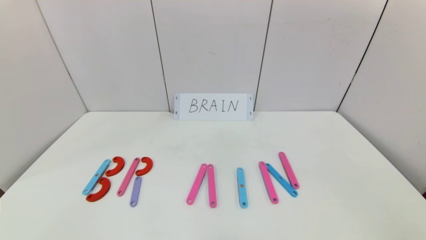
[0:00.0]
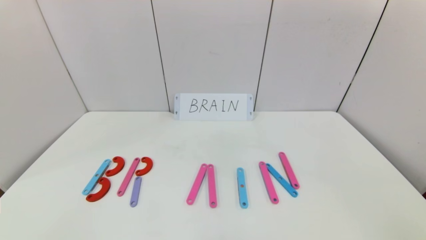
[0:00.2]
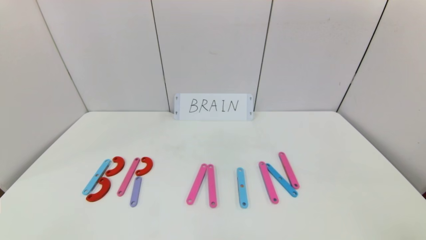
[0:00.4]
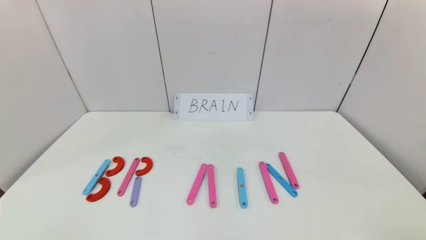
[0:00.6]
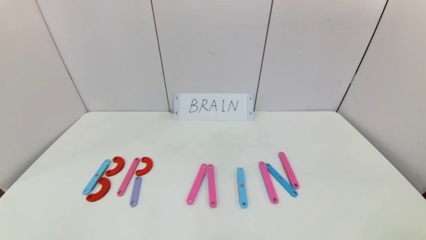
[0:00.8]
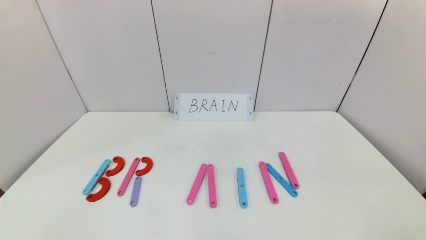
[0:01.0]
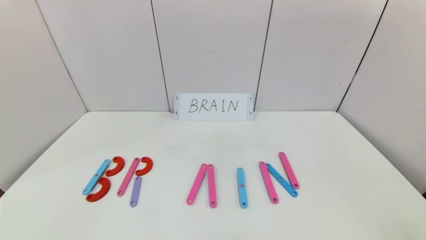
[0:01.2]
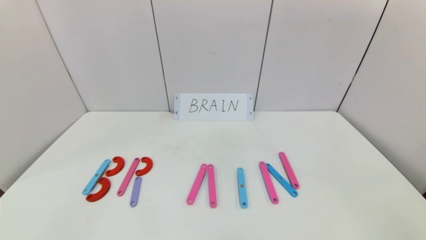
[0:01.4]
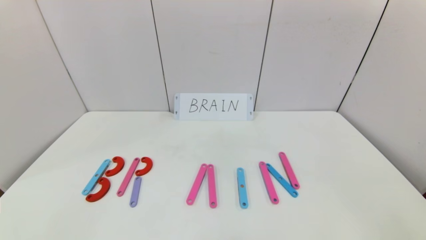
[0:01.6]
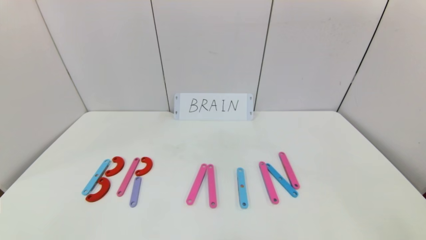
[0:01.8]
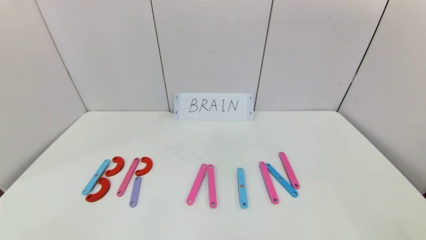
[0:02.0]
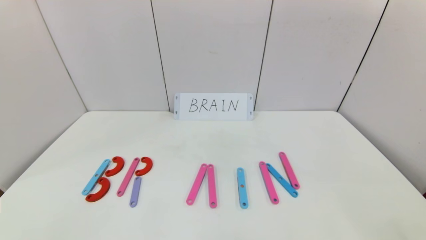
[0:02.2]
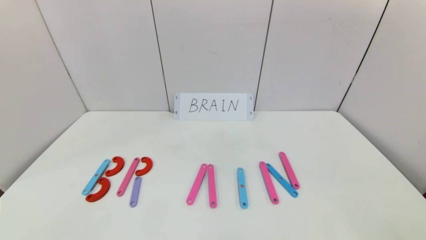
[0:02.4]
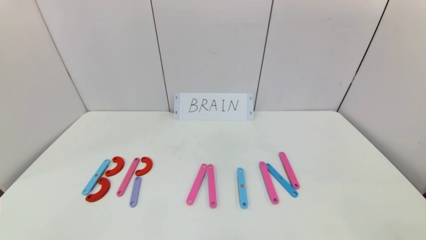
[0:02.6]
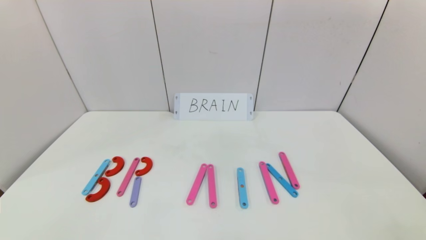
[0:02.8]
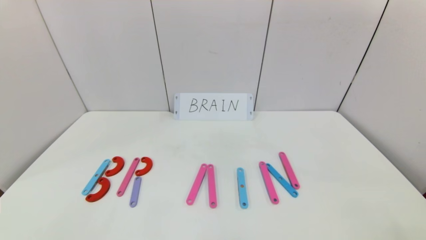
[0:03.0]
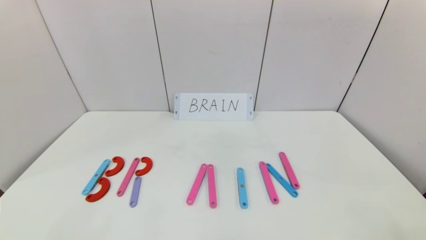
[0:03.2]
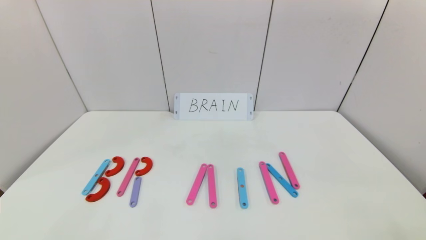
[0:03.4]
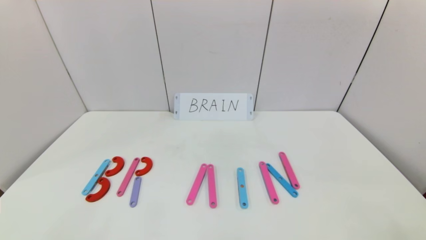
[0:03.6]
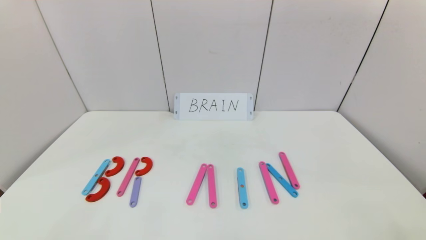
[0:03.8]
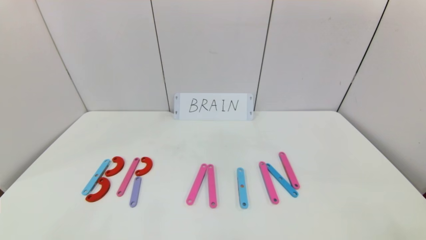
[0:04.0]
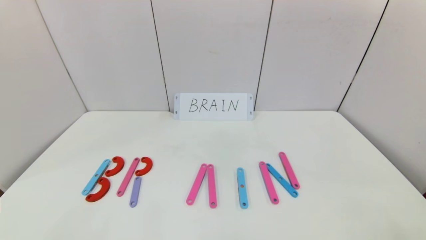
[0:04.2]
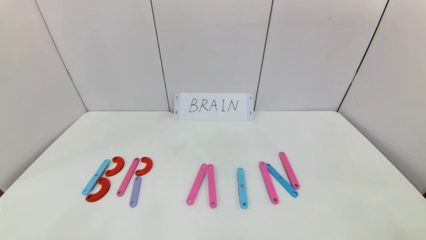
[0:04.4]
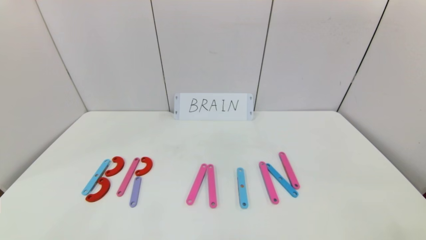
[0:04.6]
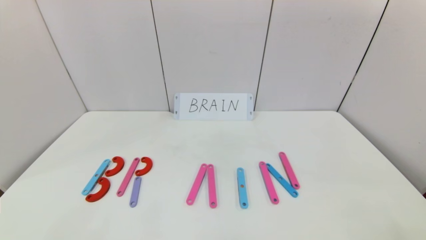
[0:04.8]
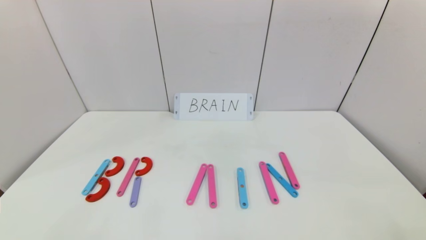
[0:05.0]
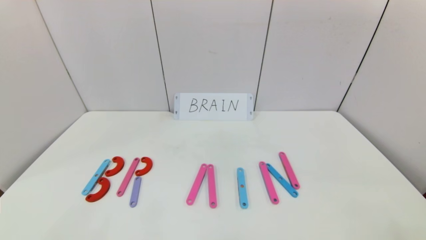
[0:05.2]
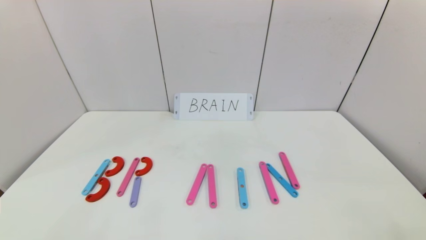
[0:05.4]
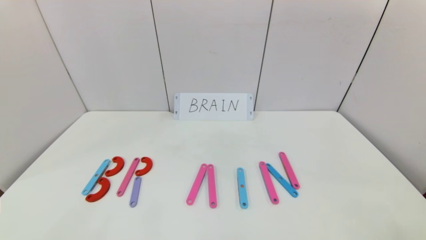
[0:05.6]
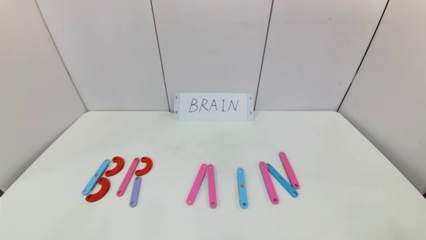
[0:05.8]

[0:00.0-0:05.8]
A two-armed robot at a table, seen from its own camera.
Task of the whole recording: rearrange the word baai as brain.
0:04.4 to 0:05.8: Neither gripper changes place.
